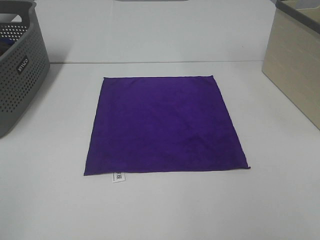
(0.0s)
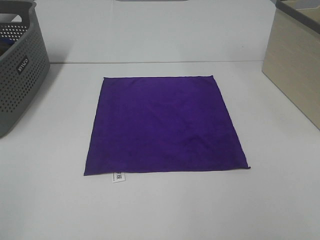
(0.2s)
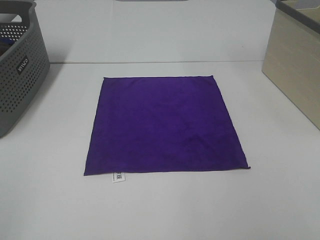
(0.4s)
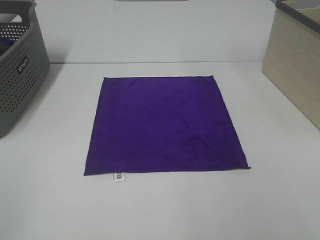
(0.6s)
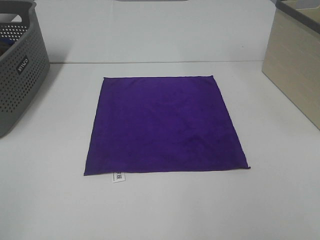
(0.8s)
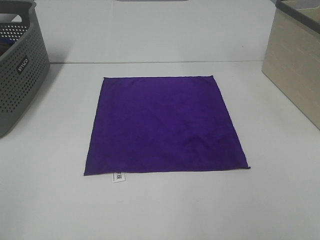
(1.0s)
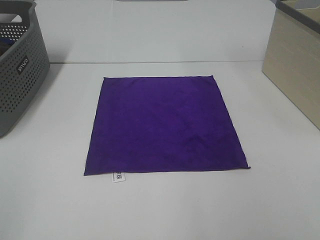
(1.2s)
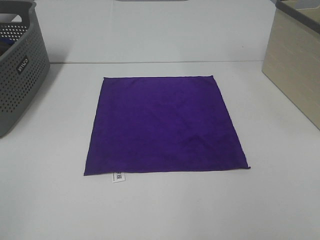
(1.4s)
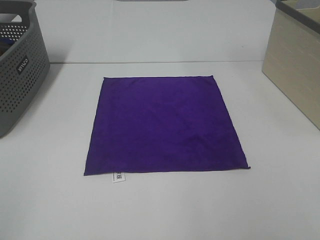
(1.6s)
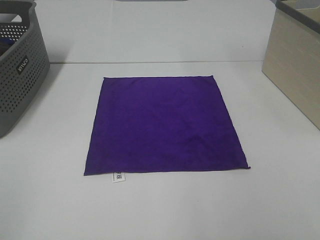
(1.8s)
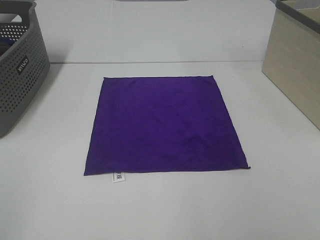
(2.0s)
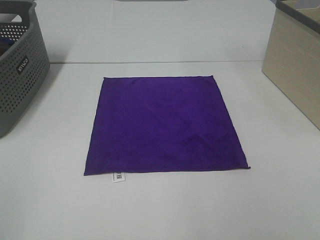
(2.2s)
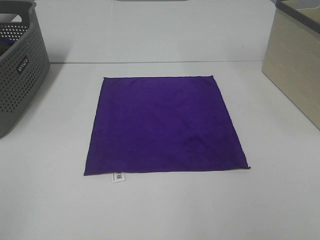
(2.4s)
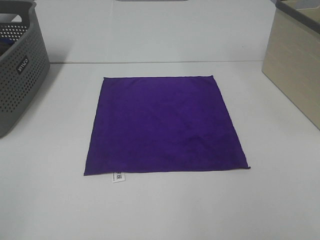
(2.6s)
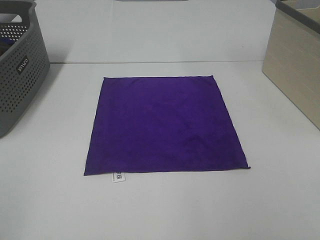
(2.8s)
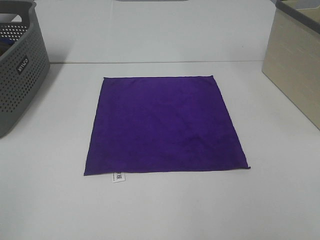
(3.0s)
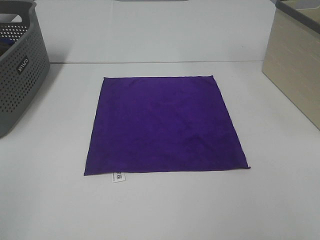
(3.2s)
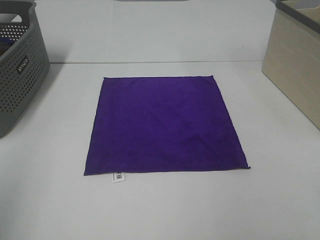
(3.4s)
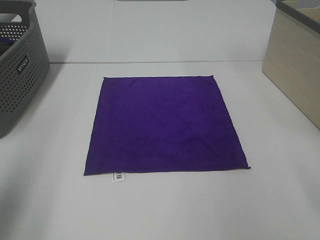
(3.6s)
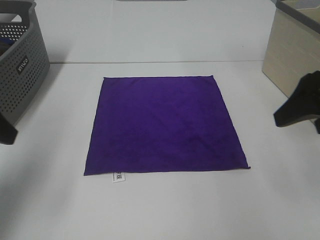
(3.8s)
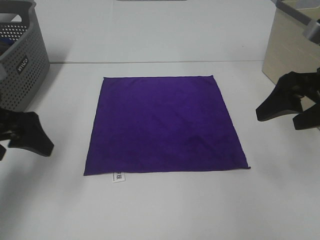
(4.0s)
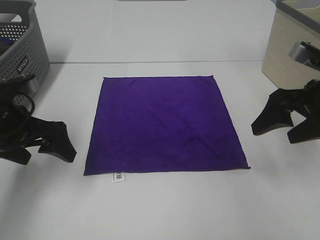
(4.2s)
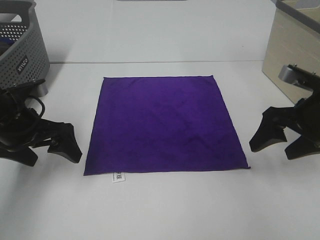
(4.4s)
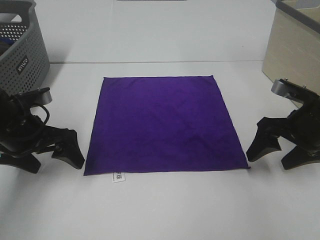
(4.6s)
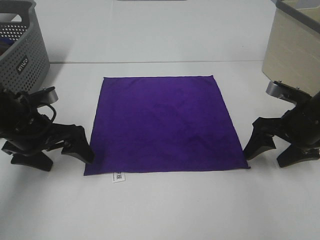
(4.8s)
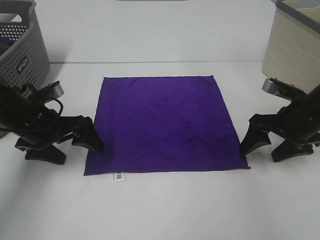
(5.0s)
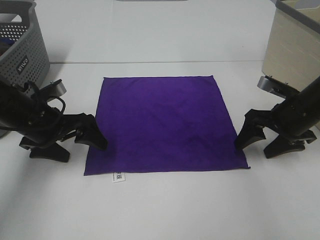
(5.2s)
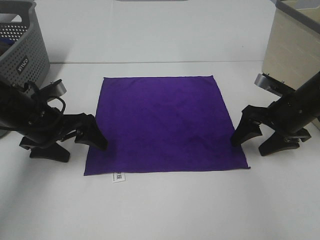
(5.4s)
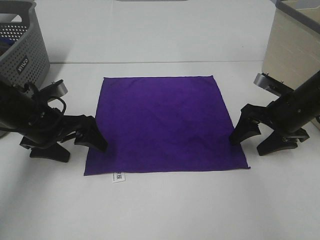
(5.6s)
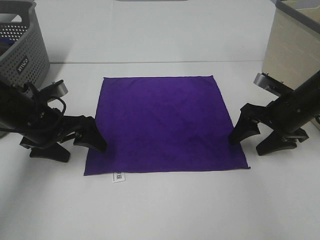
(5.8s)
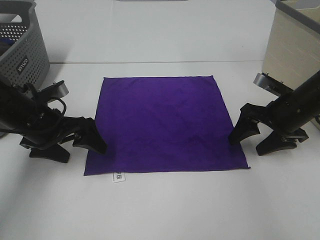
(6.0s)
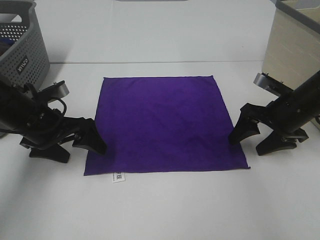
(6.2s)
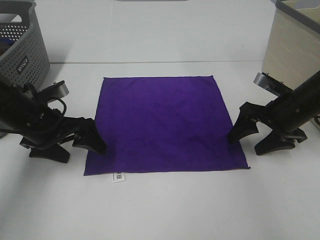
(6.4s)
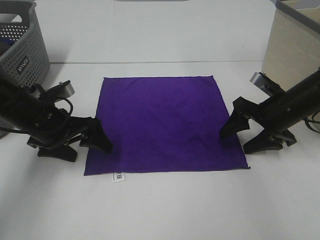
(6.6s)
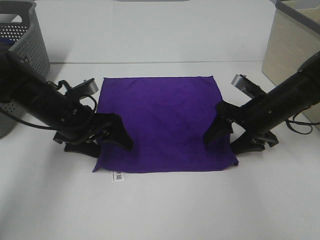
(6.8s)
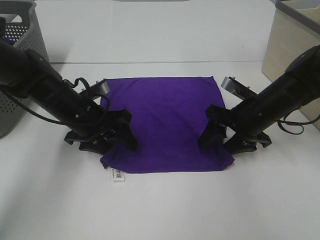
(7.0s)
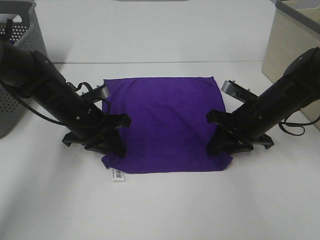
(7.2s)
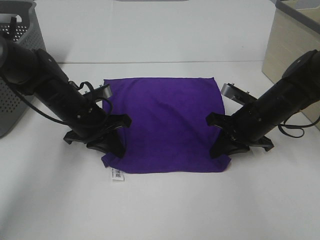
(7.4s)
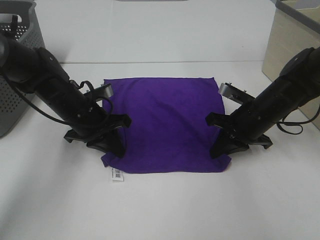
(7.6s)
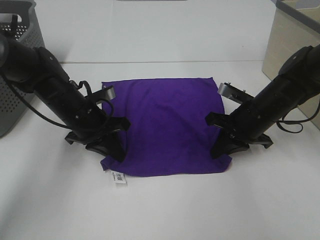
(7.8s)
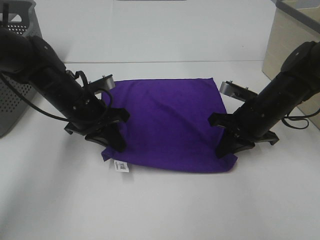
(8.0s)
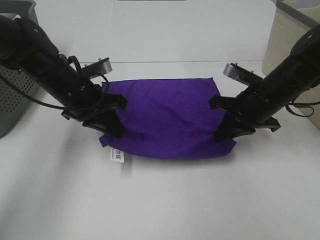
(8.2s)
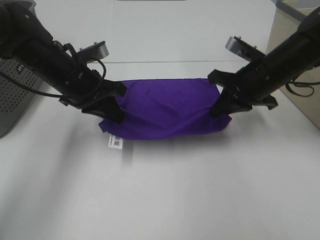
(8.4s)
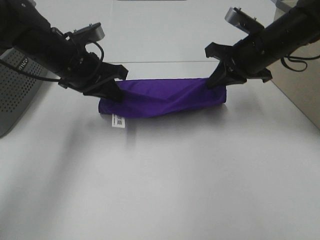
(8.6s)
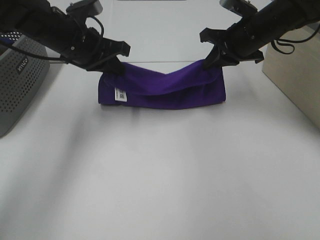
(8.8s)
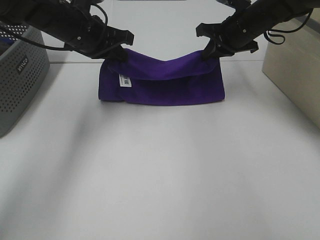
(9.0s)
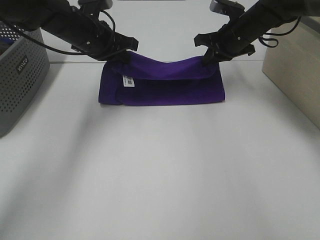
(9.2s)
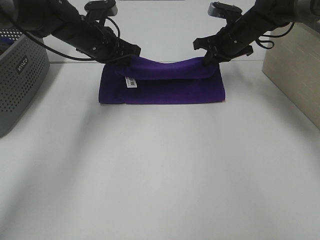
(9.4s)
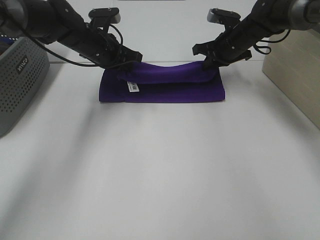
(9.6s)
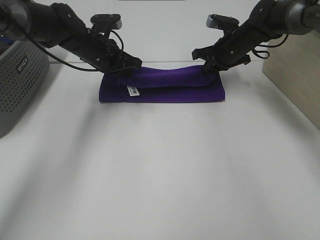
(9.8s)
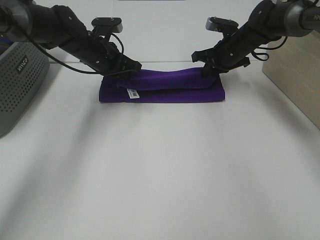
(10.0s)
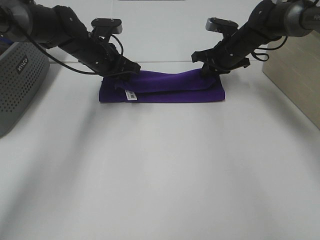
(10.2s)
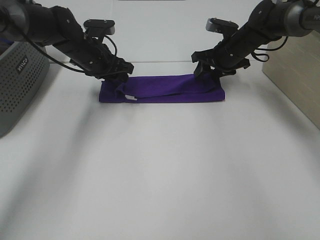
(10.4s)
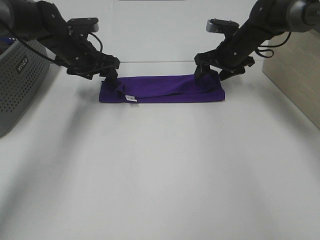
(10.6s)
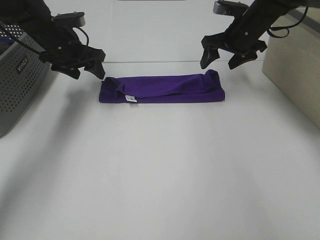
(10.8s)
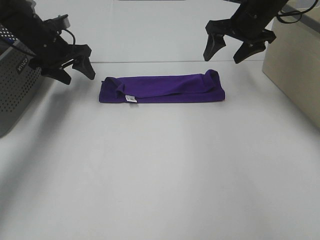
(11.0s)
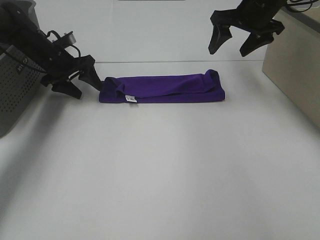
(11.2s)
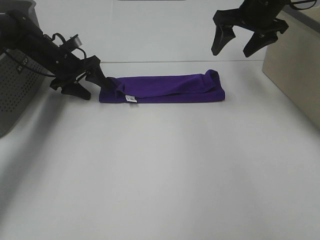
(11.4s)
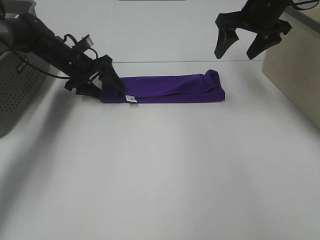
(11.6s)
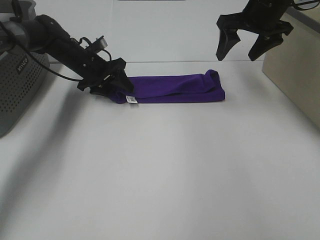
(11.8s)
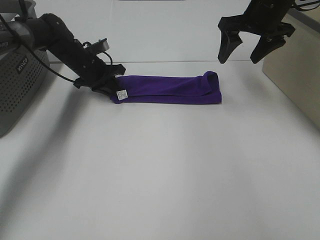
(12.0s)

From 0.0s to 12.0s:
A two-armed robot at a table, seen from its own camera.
Task of the whole recording: Fold towels.
Step, from 0.0s to 7.2s: Left hand: grab the bottom left corner of purple towel.
Step, from 0.0s to 7.2s: Right hand: grab the bottom right corner of purple towel.
Step, from 7.4s to 10.4s: Left hand: fold the purple towel up.
Step, from 7.4s to 10.4s: Right hand: fold the purple towel up.
From 0.0s to 3.0s: The two grippers keep their place.
From 3.0s to 4.4s: The two grippers go some 30 cm forward and downward.
From 4.4s to 6.0s: The right gripper moves downward and forward, approximately 10 cm.
From 6.0s to 7.6s: The right gripper moves to the left, some 5 cm, and closes. Meanwhile the left gripper travels to the right by about 5 cm, and closes.
From 7.6s to 9.0s: The left gripper moves upward and forward, some 15 cm; the right gripper heads forward and upward, covering some 20 cm.
From 9.0s to 10.4s: The left gripper shifts some 10 cm downward and forward, and opens its fingers. Meanwhile the right gripper shifts some 5 cm downward, and opens.
From 10.4s to 12.0s: The left gripper reaches approximately 10 cm to the left, then returns, and closes up. Meanwhile the right gripper is displaced upward and backward by approximately 15 cm.

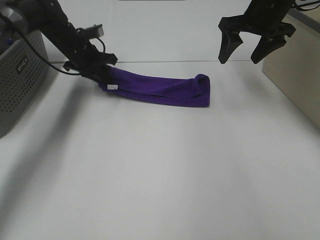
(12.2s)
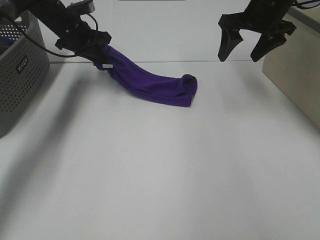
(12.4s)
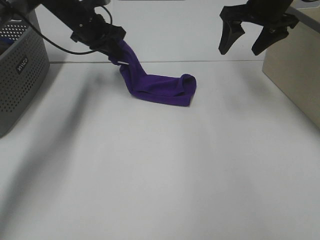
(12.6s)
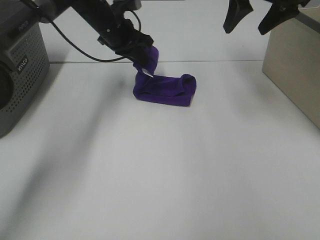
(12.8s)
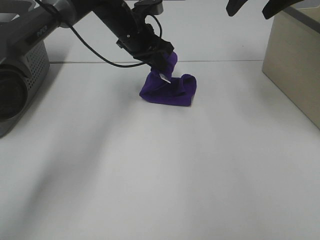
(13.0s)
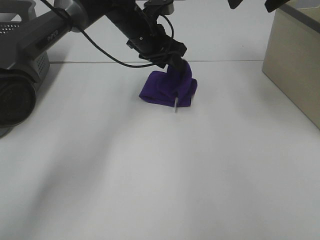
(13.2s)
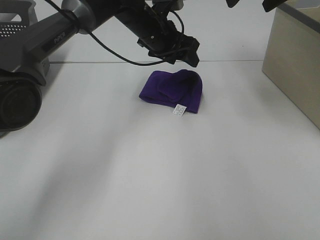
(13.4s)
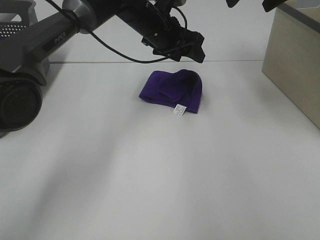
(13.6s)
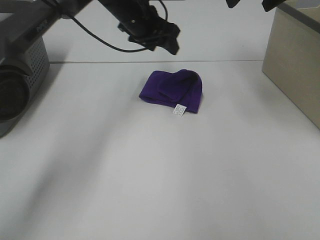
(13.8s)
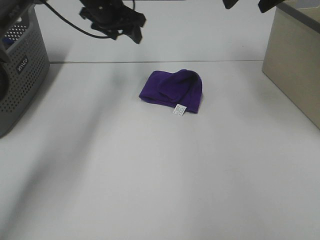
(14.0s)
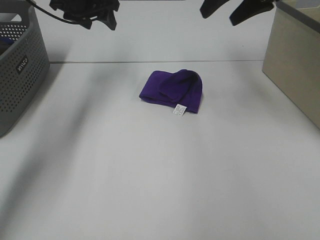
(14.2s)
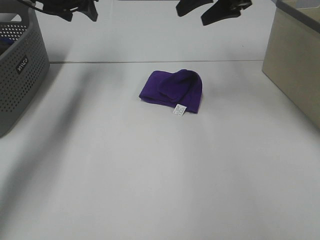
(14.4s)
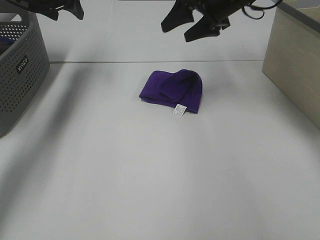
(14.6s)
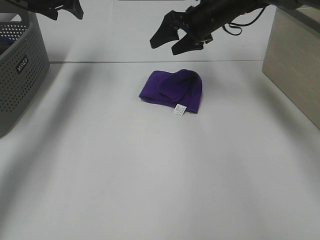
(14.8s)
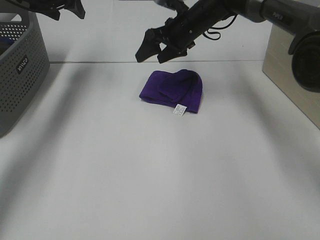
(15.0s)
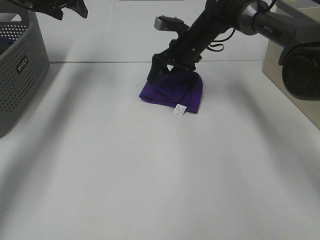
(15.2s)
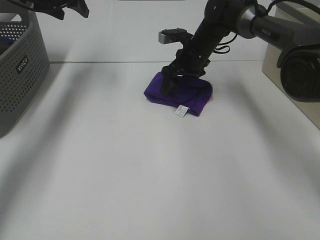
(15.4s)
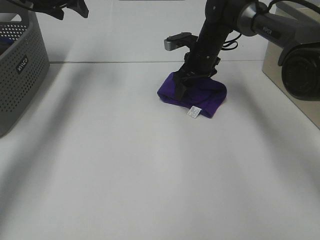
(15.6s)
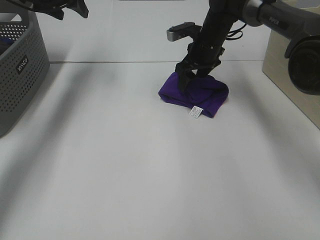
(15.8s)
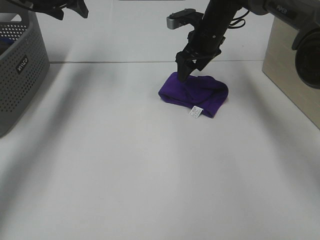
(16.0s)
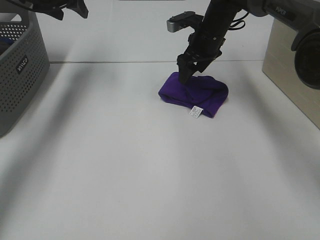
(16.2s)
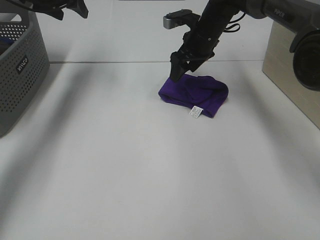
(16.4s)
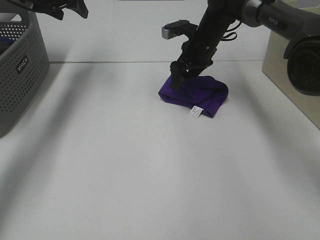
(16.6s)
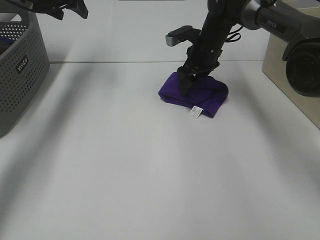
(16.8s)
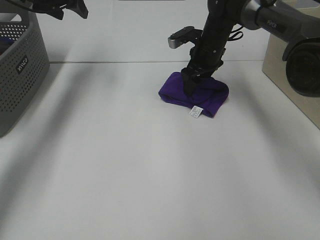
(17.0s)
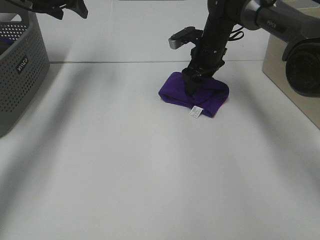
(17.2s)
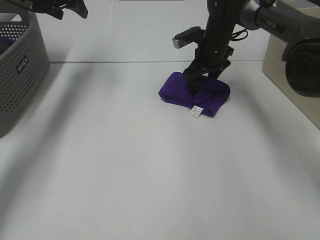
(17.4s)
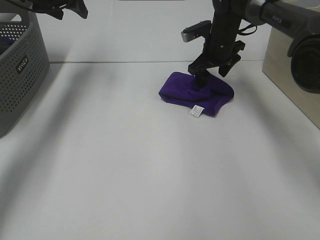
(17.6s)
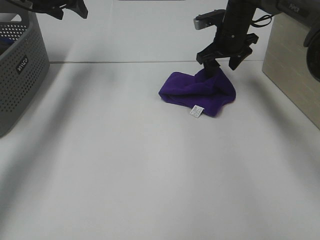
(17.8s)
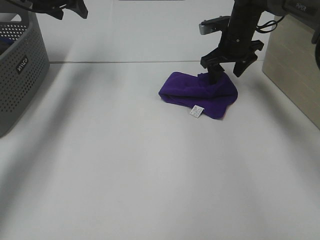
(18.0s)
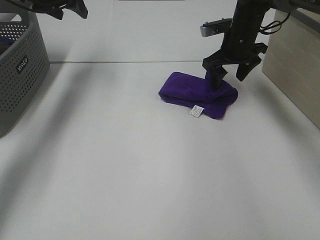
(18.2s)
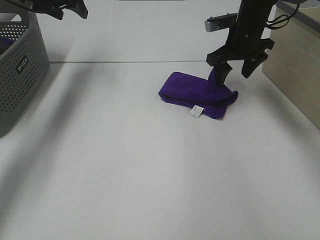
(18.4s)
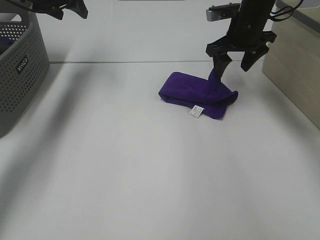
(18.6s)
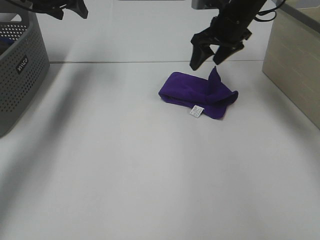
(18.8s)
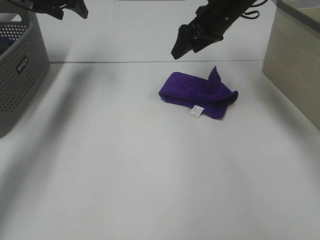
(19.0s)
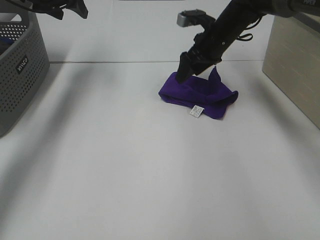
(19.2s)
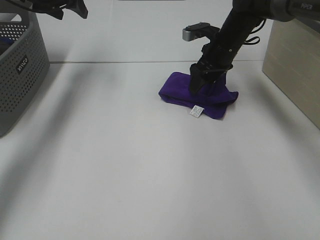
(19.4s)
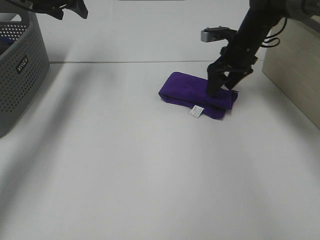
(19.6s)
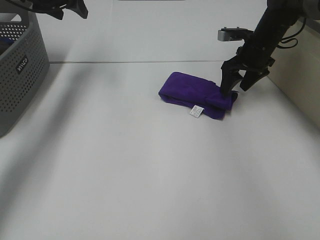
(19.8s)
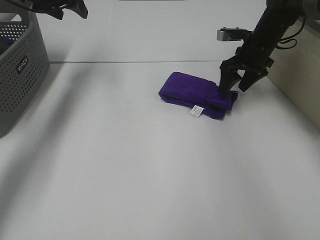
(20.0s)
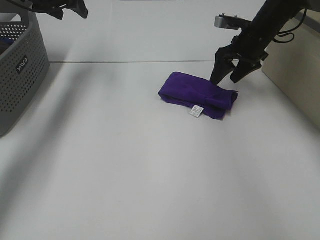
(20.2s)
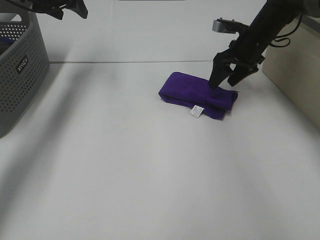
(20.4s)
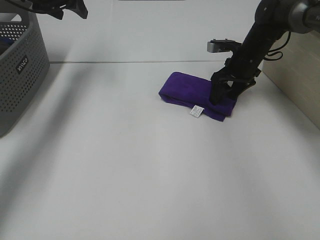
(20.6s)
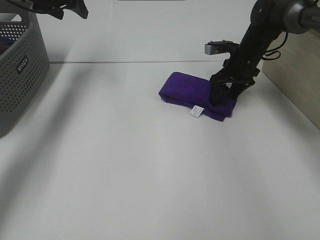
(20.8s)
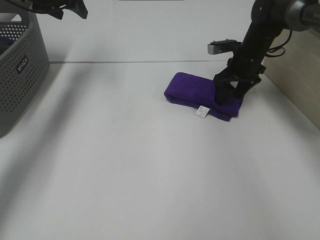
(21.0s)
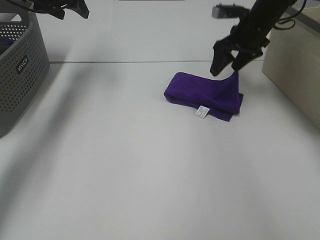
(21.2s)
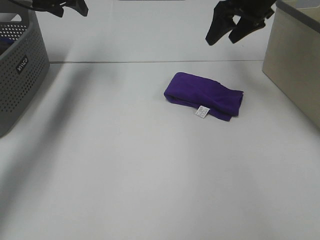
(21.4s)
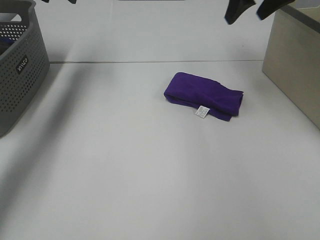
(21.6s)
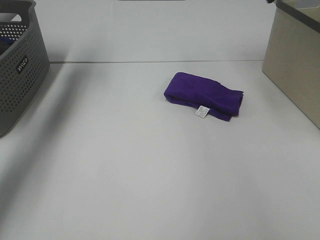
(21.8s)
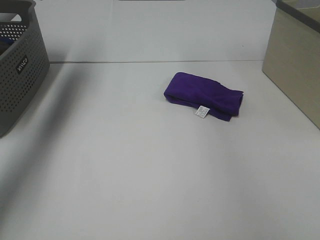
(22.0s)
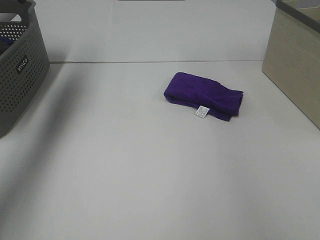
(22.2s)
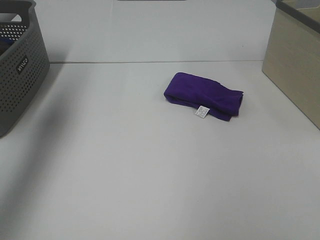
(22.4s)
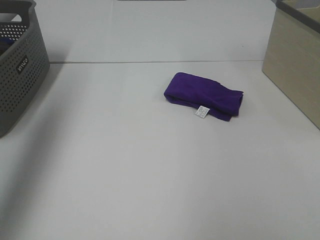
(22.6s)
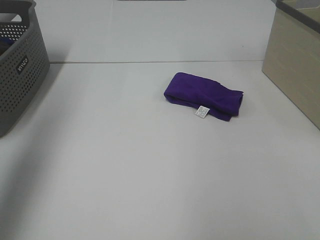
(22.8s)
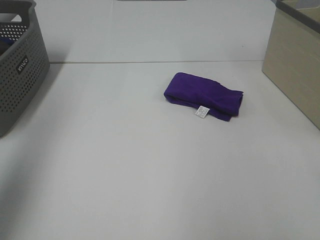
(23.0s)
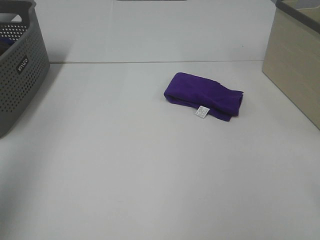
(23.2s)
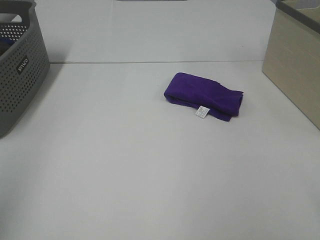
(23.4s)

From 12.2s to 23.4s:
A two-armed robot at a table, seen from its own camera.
Task of the whole recording: Fold towels.
Step, from 13.4s to 21.2s: Right hand: adjust the purple towel.
From 12.2s to 13.8s: The right gripper heads upward, covering about 10 cm; the left gripper moves to the right and upward, about 15 cm, and opens.
From 13.8s to 15.4s: The left gripper is displaced to the left by roughly 20 cm, while the right gripper shifts approximately 30 cm downward, to the left and forward.
From 15.4s to 17.0s: The grippers make only small movements.
From 17.0s to 18.6s: The right gripper heads upward and to the right, covering roughly 10 cm.
From 18.6s to 20.2s: The right gripper moves about 5 cm.
From 20.2s to 21.8s: The left gripper shifts approximately 5 cm upward. The right gripper heads upward, covering some 20 cm.
From 21.8s to 23.4s: The left gripper shifts about 50 cm backward.
